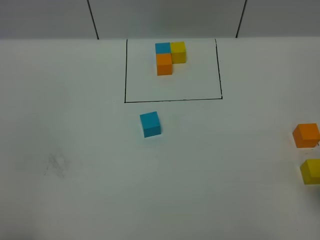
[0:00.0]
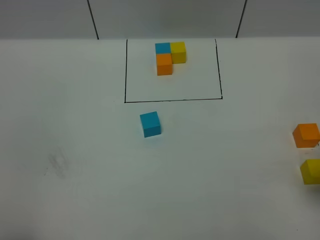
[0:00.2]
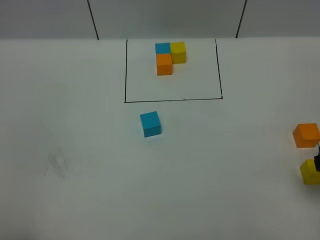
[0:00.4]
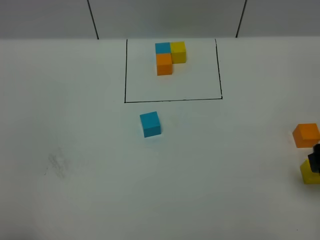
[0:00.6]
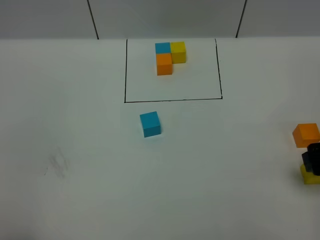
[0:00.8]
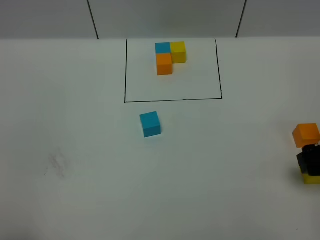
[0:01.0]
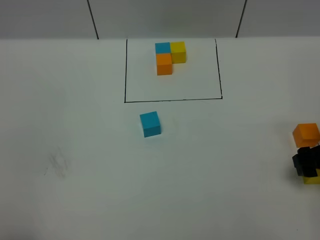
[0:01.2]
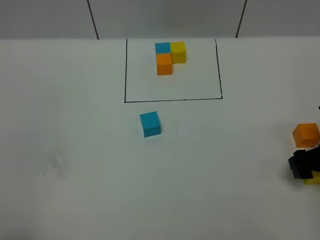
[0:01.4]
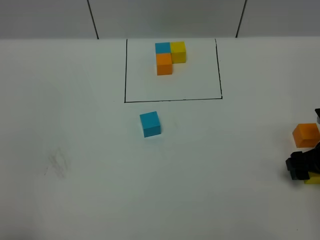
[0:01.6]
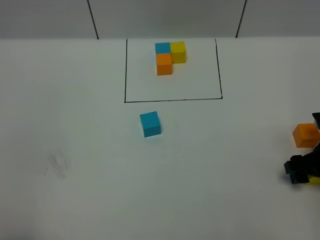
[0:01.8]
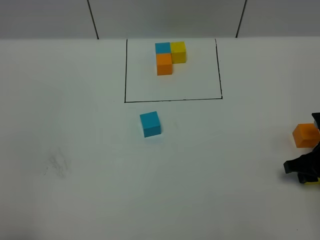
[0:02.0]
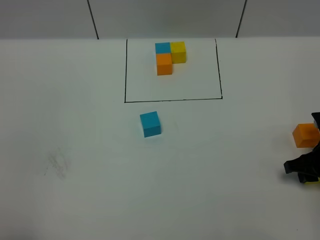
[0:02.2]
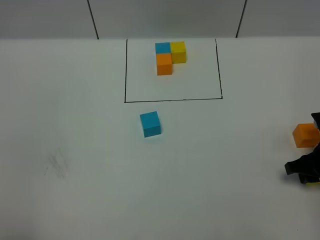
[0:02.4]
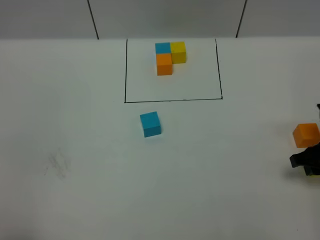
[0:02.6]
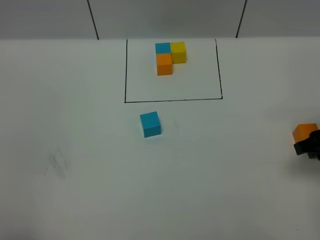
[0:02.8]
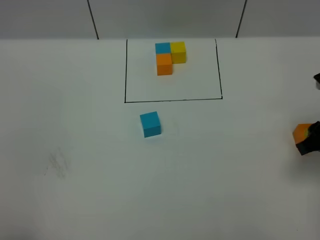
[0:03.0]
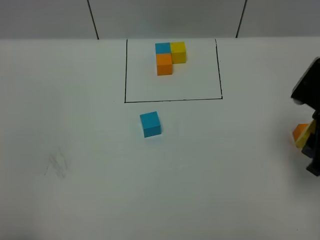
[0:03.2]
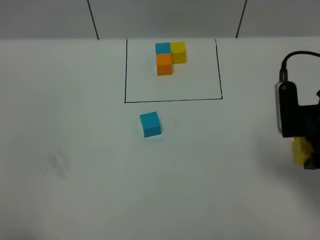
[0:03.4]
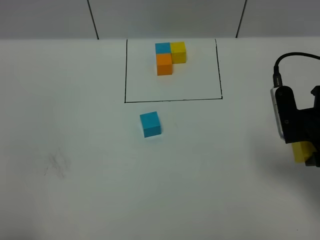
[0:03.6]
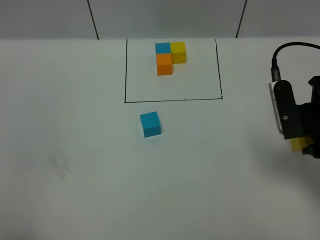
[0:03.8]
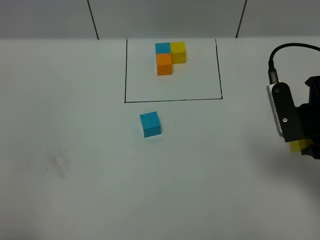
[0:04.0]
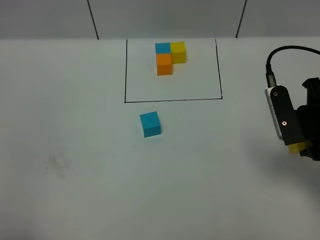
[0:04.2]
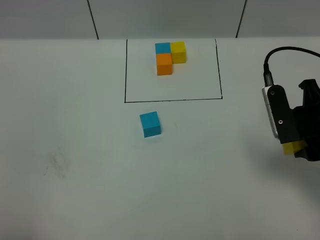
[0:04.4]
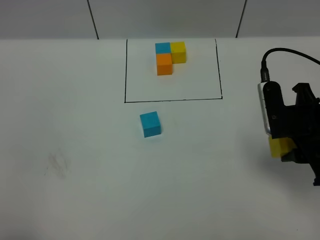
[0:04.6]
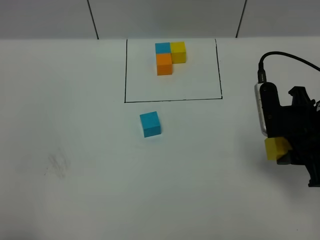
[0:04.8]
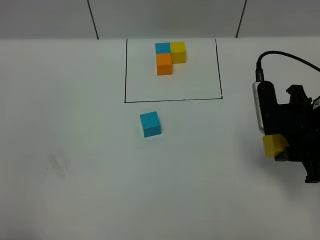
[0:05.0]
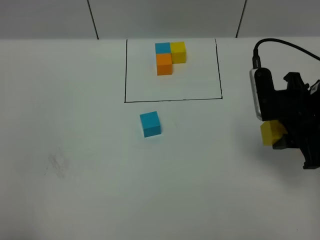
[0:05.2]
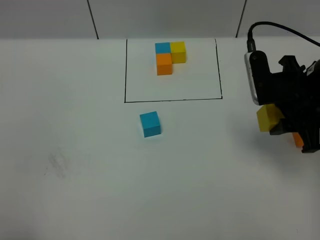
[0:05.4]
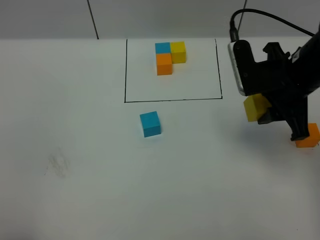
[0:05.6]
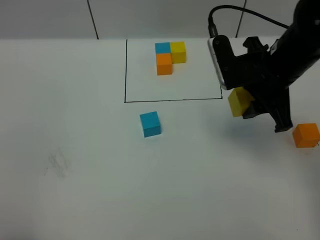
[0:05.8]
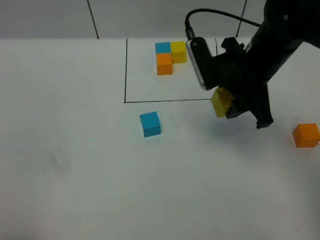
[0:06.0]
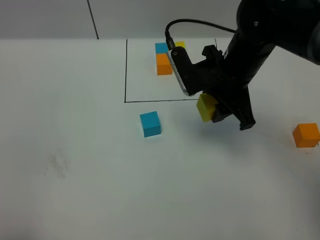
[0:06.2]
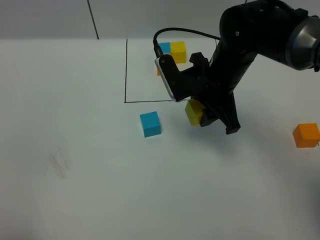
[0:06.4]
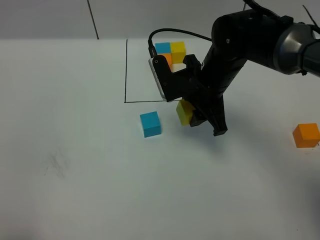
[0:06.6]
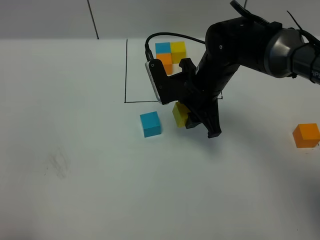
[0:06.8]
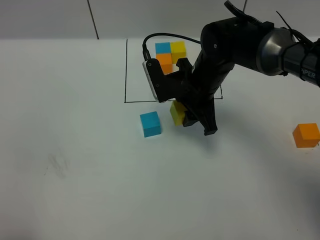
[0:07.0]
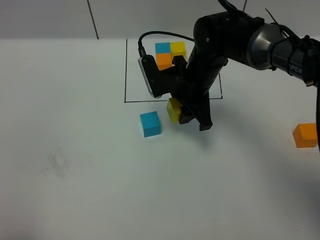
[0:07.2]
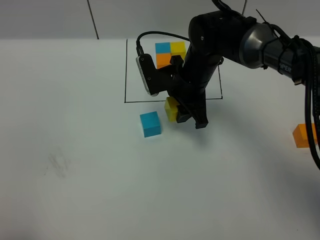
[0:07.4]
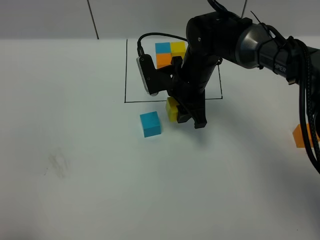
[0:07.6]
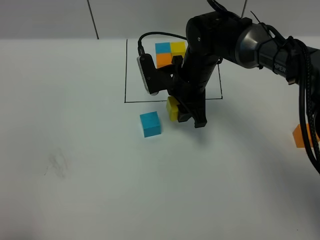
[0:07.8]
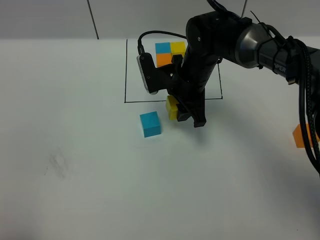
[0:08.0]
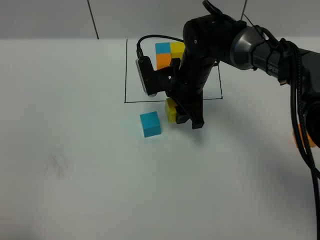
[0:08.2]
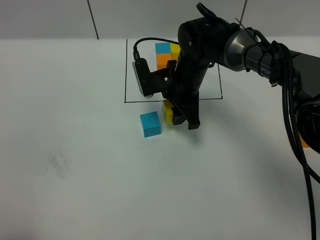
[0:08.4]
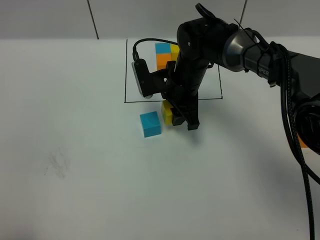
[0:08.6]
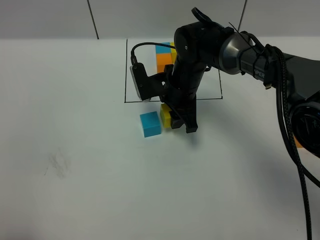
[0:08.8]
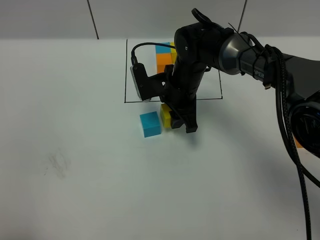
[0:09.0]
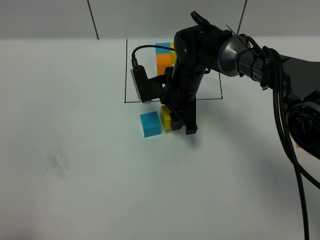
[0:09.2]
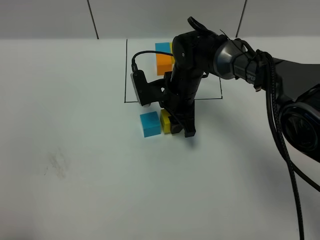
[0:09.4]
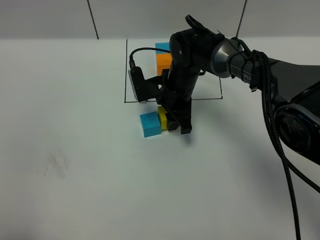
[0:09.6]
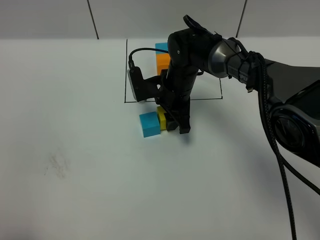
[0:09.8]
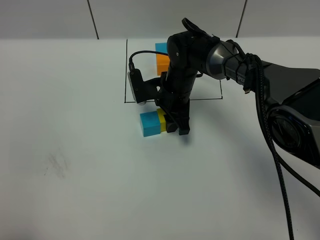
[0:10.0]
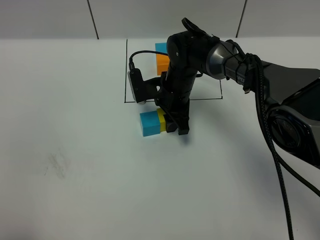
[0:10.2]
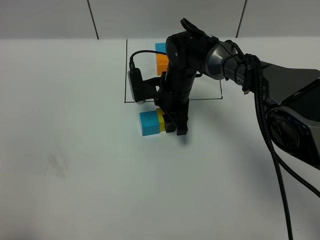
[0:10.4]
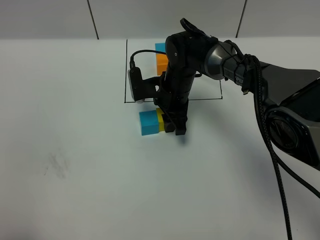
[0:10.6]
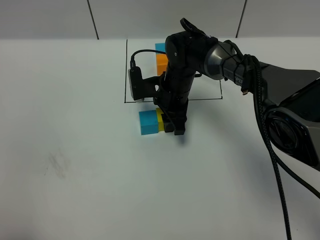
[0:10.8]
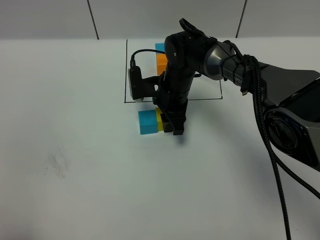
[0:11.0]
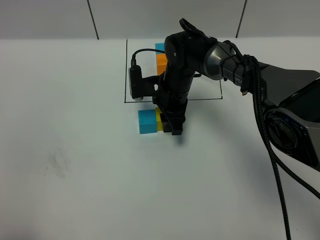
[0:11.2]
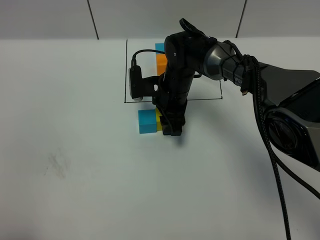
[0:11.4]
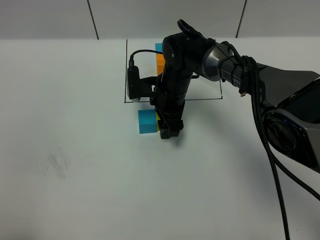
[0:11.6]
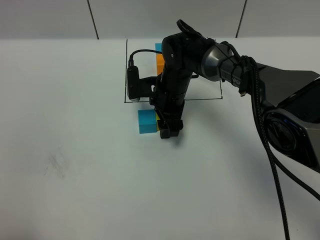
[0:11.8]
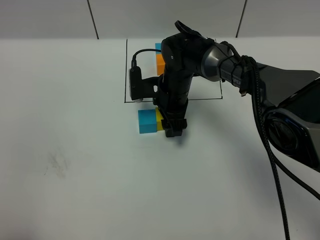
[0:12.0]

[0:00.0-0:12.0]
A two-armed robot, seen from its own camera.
Task of the whole recording: According to the building block template in front, assemble the scattered blocks together.
0:00.0 to 0:01.6: The right gripper heads downward and forward, covering some 15 cm.
0:01.6 to 0:03.0: The right gripper goes some 10 cm upward, and closes up.
0:04.4 to 0:06.0: The right gripper is displaced to the left and forward by some 15 cm.
0:06.0 to 0:07.6: The right gripper is displaced downward, to the left and forward by some 15 cm.
0:07.6 to 0:09.0: The grippers make only small movements.
0:09.0 to 0:12.0: The grippers make only small movements.

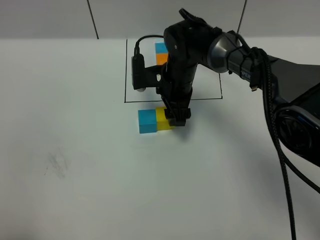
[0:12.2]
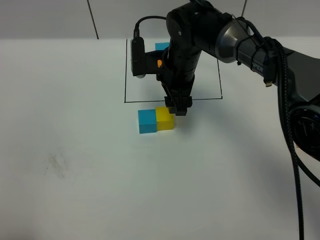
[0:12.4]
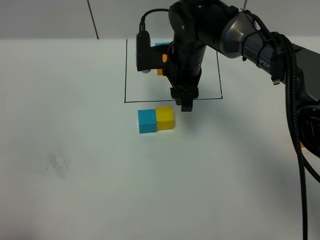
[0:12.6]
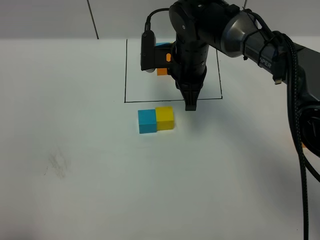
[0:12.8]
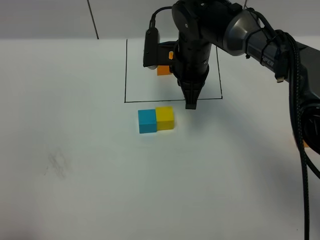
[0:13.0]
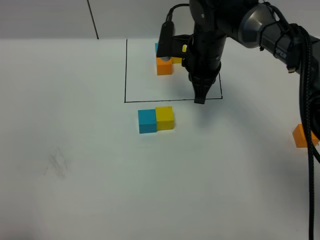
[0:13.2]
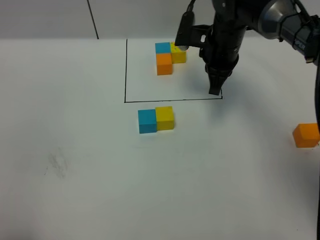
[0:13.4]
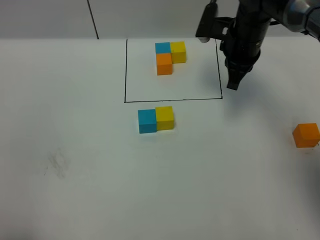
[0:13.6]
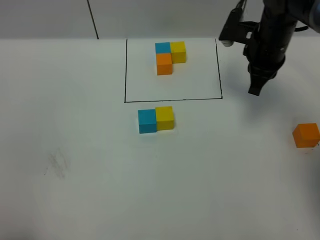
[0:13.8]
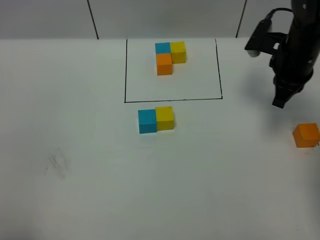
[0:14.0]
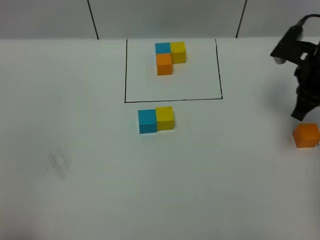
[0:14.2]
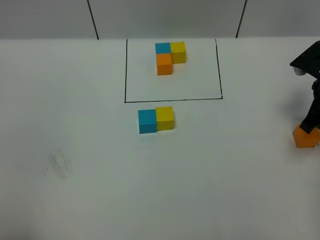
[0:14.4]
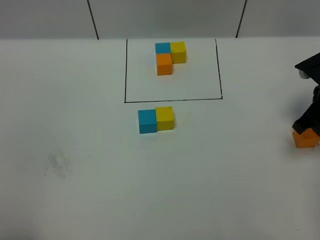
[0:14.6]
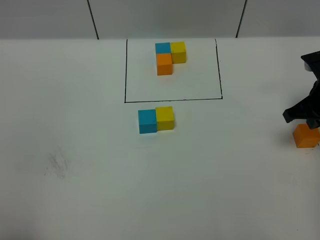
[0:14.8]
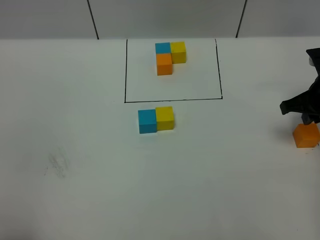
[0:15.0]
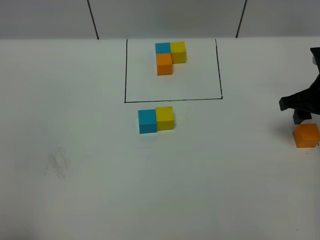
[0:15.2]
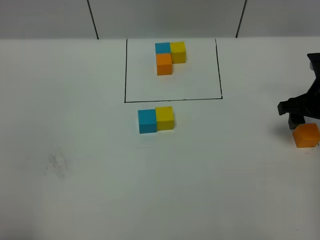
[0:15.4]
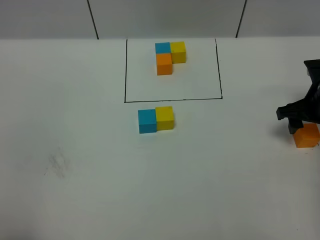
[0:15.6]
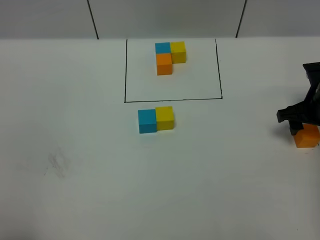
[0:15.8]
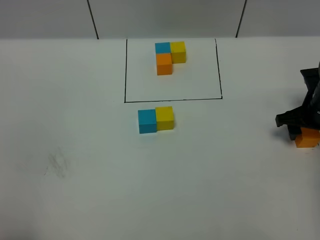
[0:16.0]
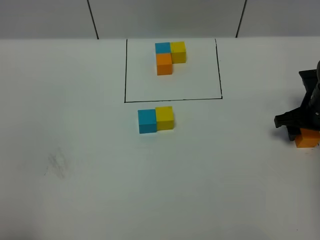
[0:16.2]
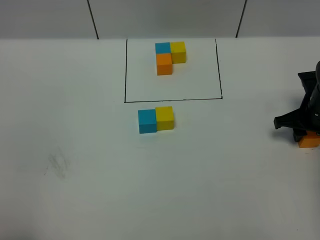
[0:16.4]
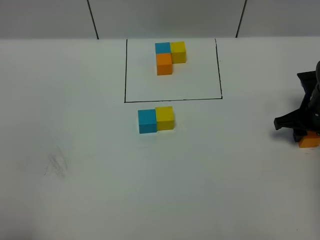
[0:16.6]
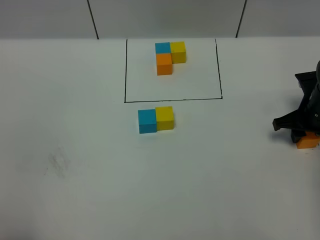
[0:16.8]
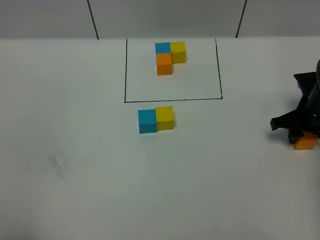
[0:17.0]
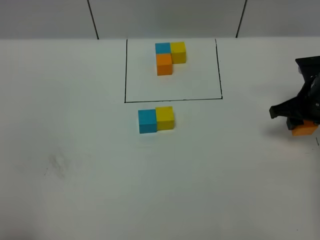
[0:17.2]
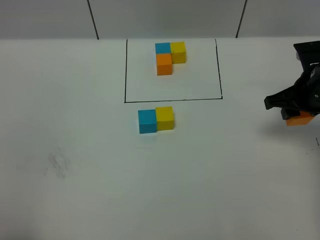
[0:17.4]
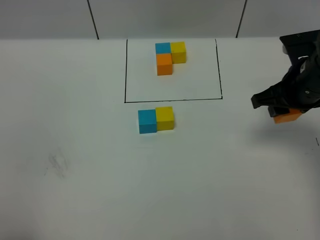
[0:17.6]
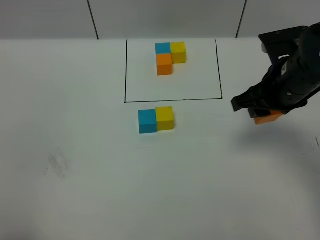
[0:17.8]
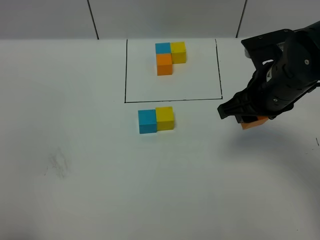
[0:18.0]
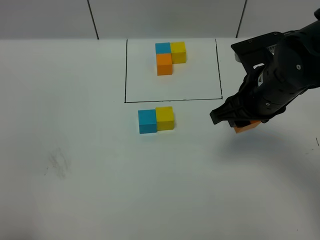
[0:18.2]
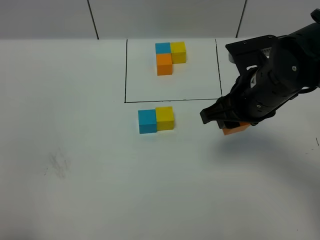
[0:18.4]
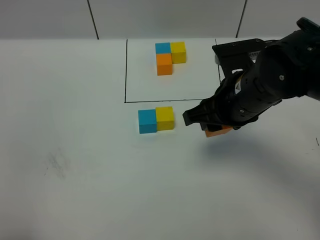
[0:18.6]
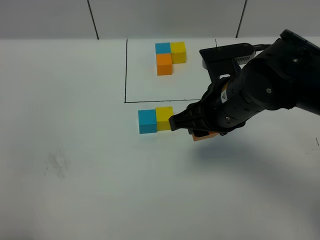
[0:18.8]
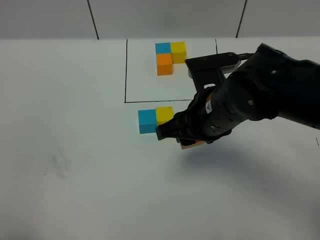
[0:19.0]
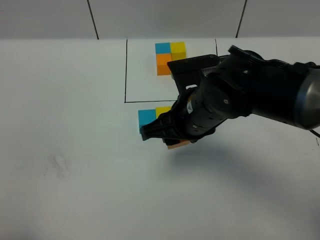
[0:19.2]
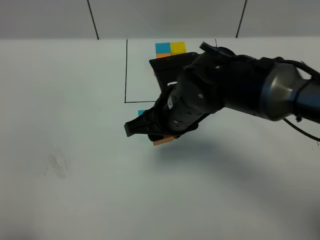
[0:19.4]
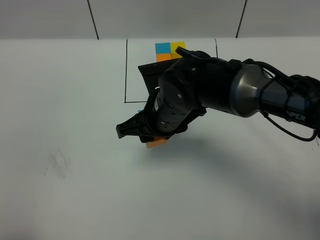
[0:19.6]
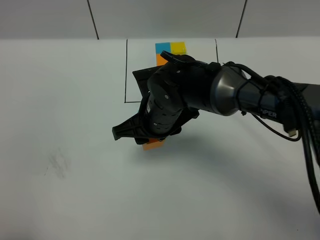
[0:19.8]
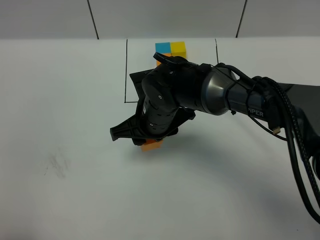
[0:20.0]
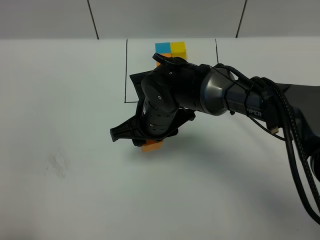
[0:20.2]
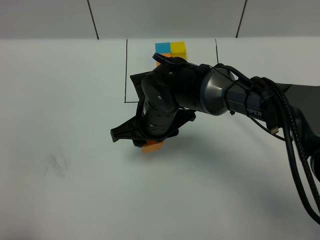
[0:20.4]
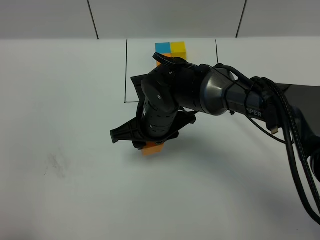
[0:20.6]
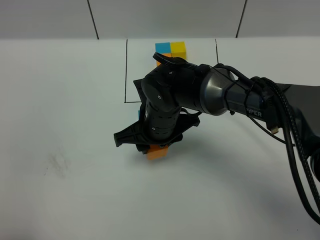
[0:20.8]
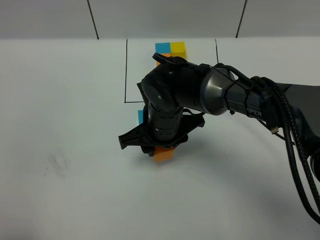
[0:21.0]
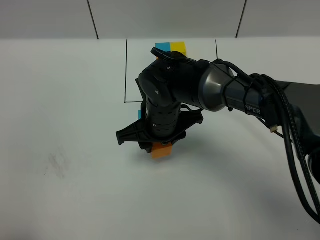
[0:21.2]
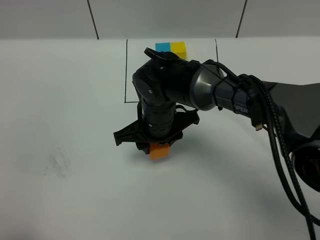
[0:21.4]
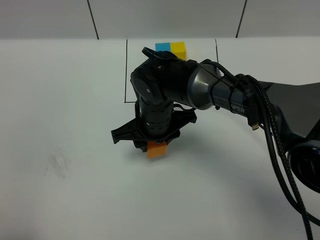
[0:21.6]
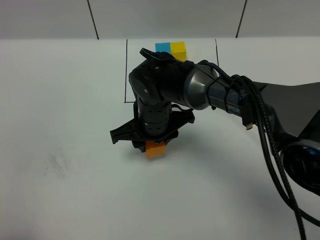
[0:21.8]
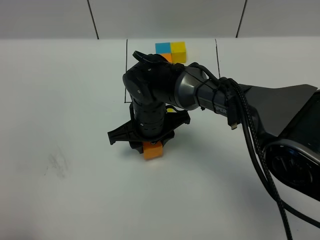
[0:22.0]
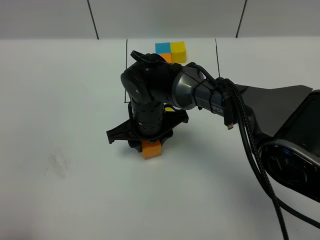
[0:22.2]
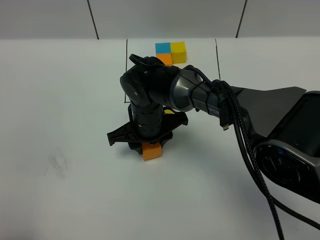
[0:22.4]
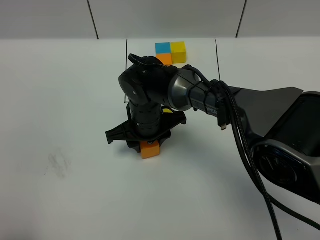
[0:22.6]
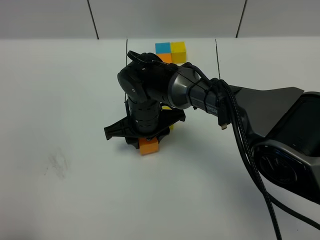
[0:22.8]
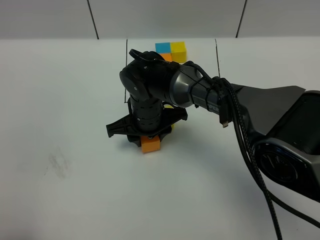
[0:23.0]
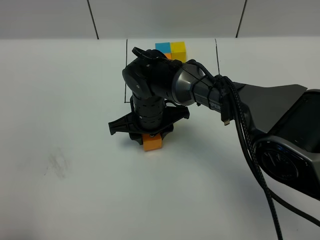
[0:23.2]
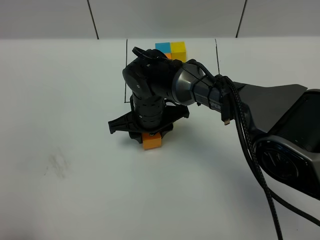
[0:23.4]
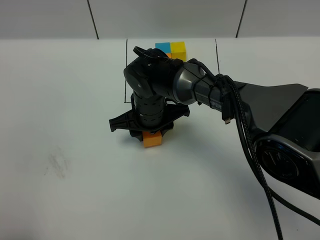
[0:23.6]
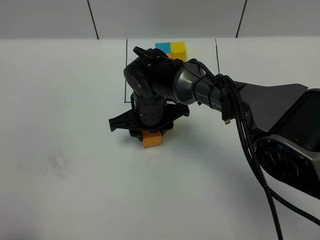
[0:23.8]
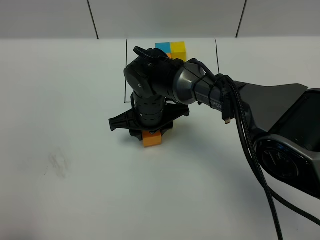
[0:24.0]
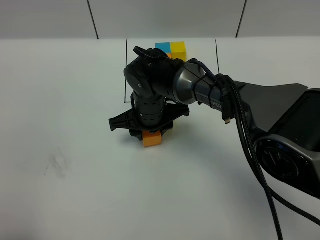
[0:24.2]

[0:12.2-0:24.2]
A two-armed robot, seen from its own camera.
Task of the whole recording: According to the building block template in front, assemble the scattered blocks together.
0:12.2 to 0:13.8: The right gripper heads to the right, covering some 15 cm, and closes its fingers.
0:13.8 to 0:15.2: The right gripper goes some 15 cm to the right and backward, and opens.
0:15.2 to 0:16.6: The right gripper is displaced downward by about 5 cm.
0:16.6 to 0:18.2: The right gripper is displaced to the left, upward and backward by roughly 20 cm.
0:18.2 to 0:19.8: The right gripper heads to the left and downward, covering some 20 cm.
0:19.8 to 0:21.2: The grippers move only a little.
0:21.2 to 0:22.6: The right gripper moves approximately 5 cm.
0:22.6 to 0:24.2: The grippers move only a little.
